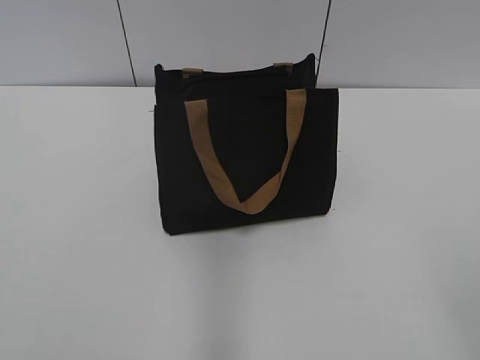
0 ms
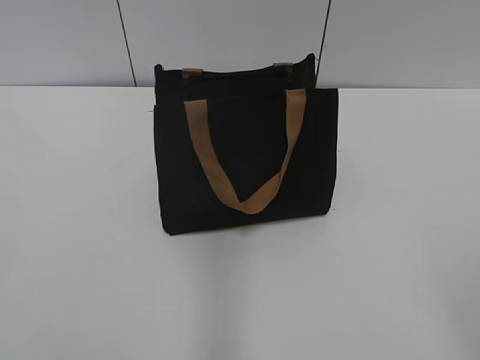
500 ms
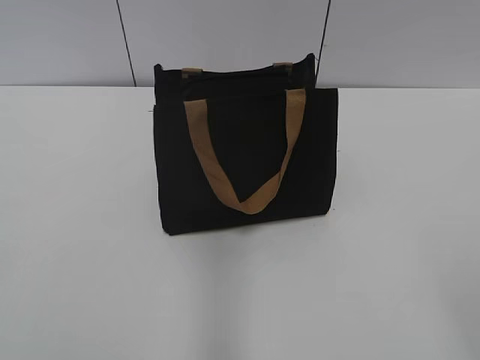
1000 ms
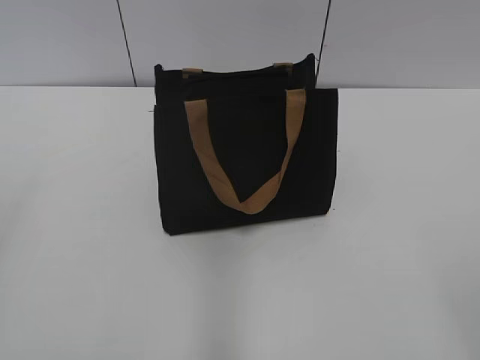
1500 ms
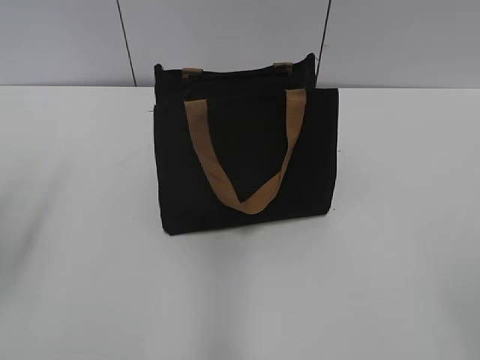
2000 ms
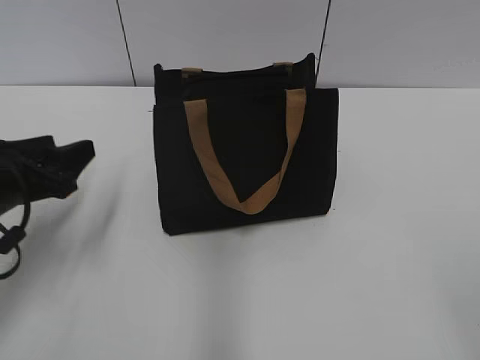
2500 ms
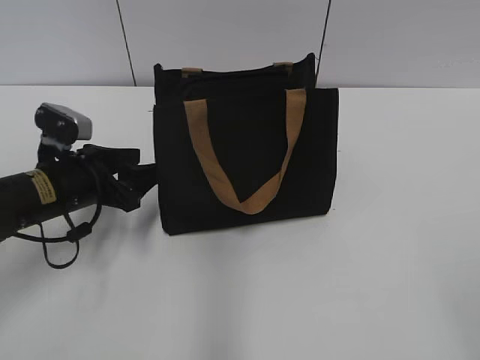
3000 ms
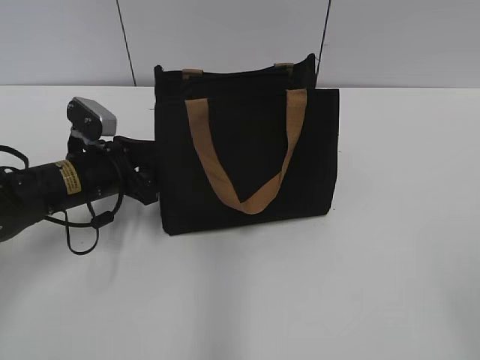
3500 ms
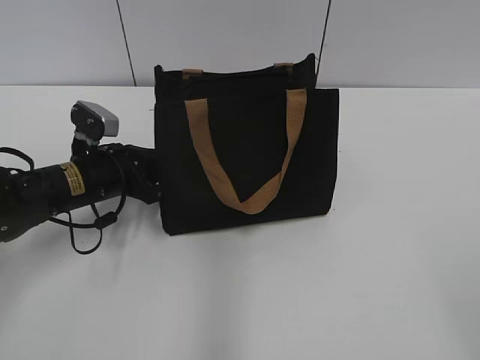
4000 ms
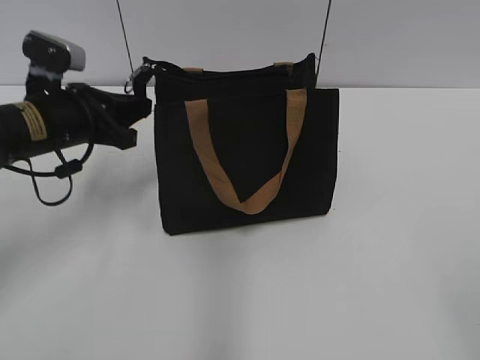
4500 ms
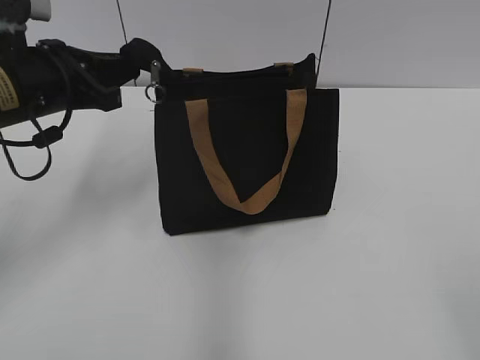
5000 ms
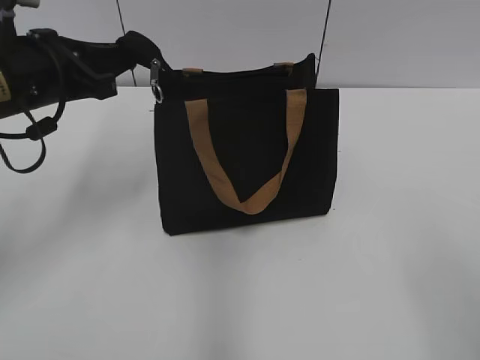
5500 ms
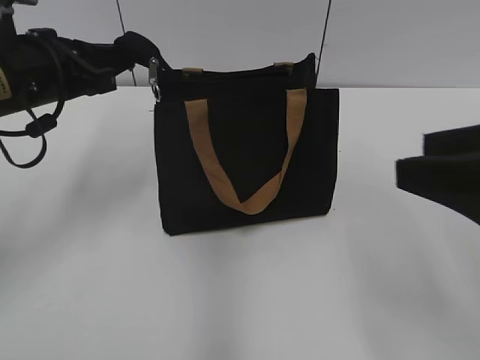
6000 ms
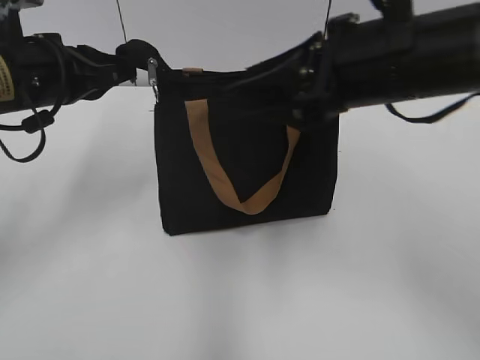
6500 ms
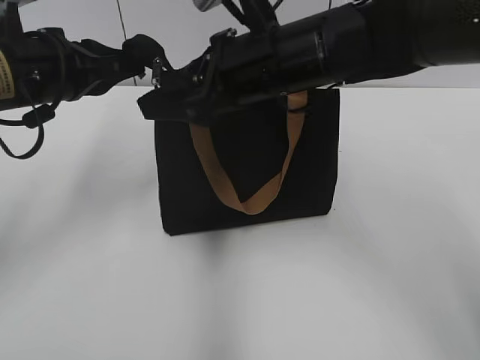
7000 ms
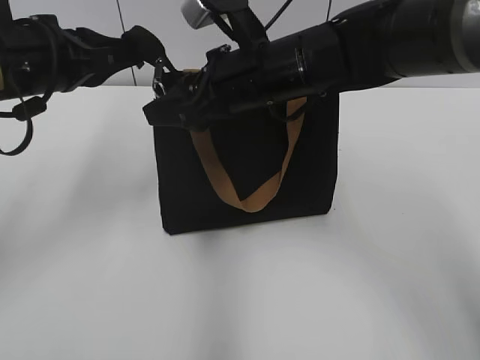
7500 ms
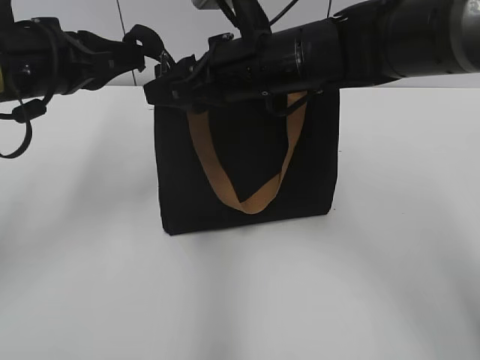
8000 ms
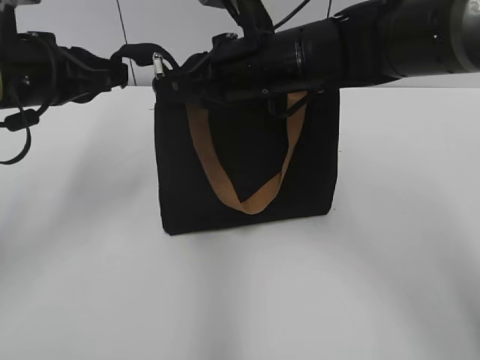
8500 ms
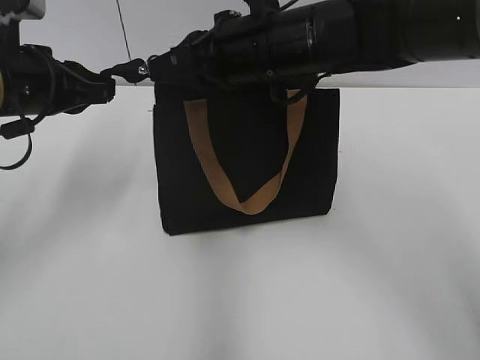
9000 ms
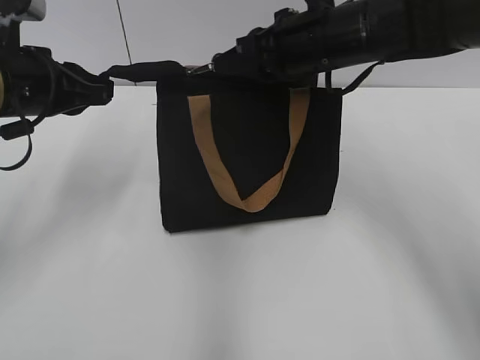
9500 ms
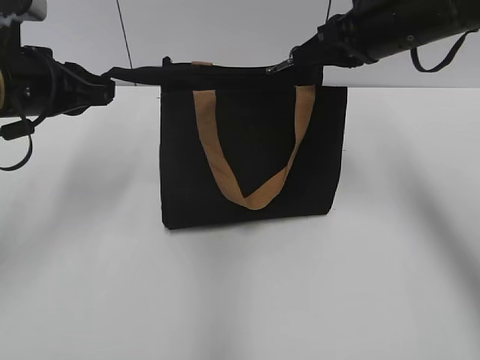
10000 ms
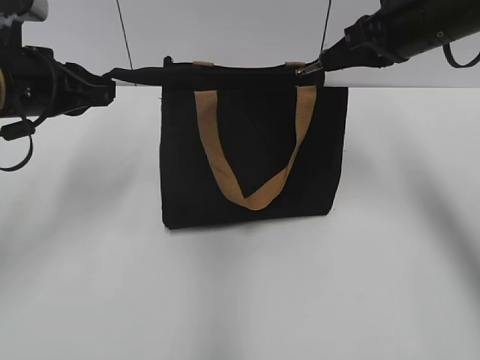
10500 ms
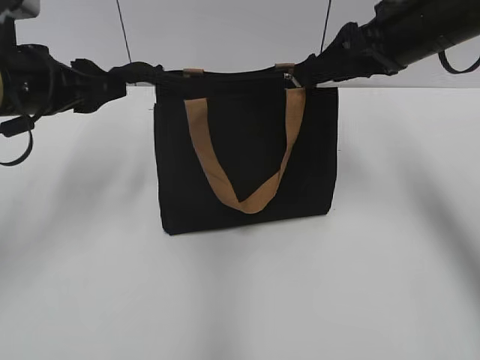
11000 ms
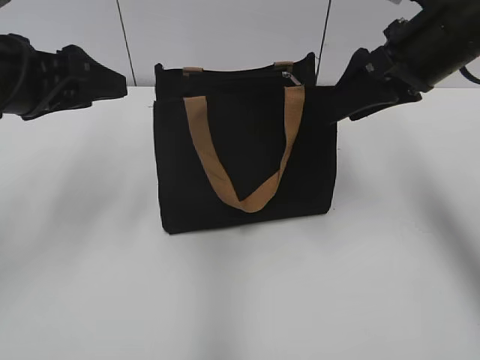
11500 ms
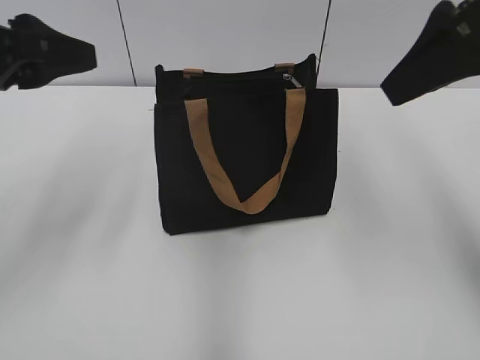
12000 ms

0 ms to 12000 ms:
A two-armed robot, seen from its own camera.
Step, 0 ms to 10500 ms: Zip up the bag with your right hand.
2000 ms to 4000 ms: The left gripper is displaced downward, forward and to the right by about 30 cm, and closes its fingers.
4000 ms to 6000 ms: The right gripper travels forward by roughly 15 cm, while the left gripper heads upward, covering approximately 15 cm.
6000 ms to 8000 ms: The right gripper is displaced forward and to the left by about 30 cm.
8000 ms to 10000 ms: The right gripper heads to the right, covering about 15 cm, and closes up.
10000 ms to 12000 ms: The right gripper travels backward and upward by roughly 15 cm, and opens. Meanwhile the left gripper travels backward and upward by approximately 10 cm, and opens its fingers.

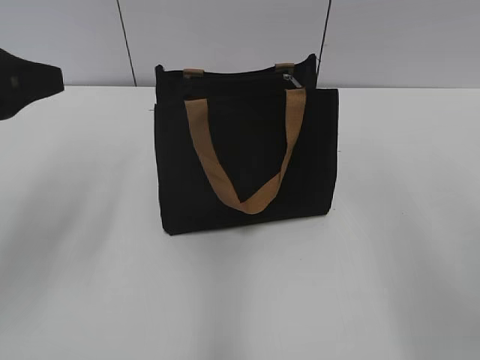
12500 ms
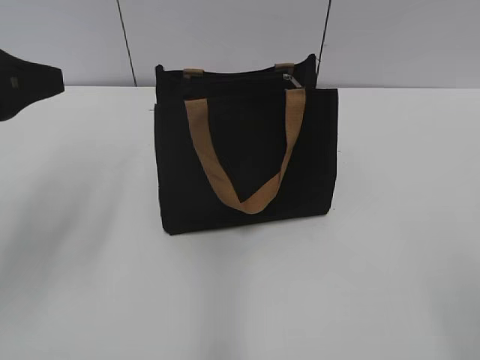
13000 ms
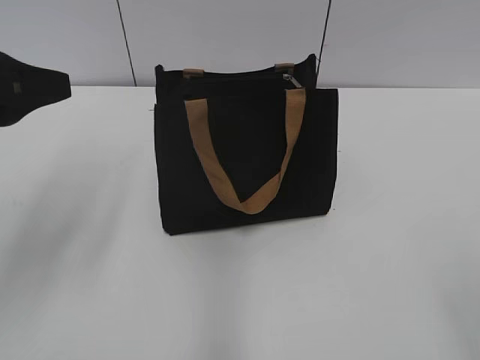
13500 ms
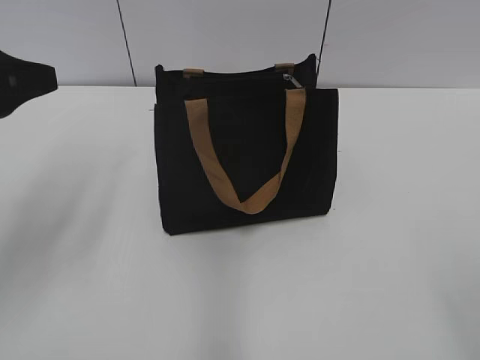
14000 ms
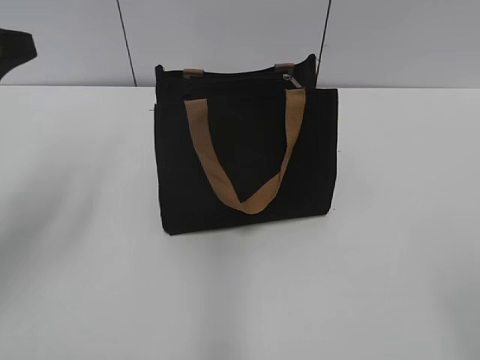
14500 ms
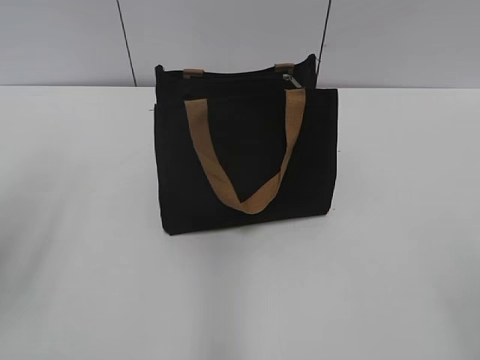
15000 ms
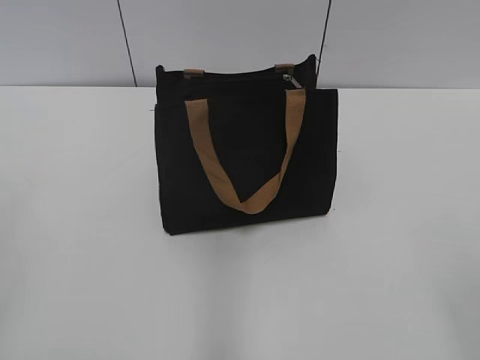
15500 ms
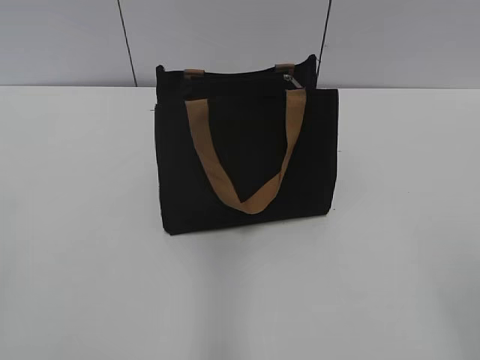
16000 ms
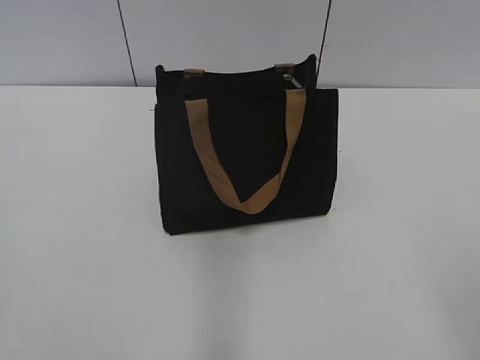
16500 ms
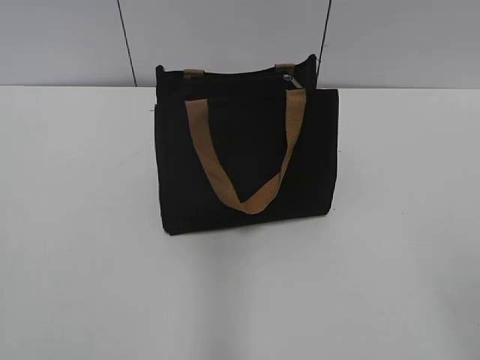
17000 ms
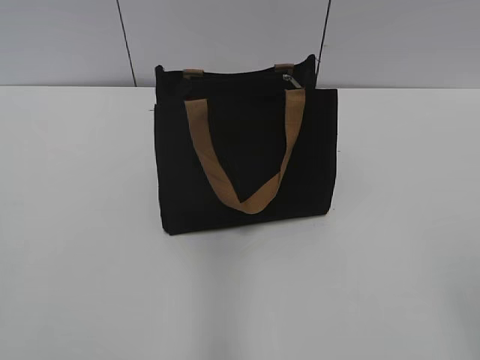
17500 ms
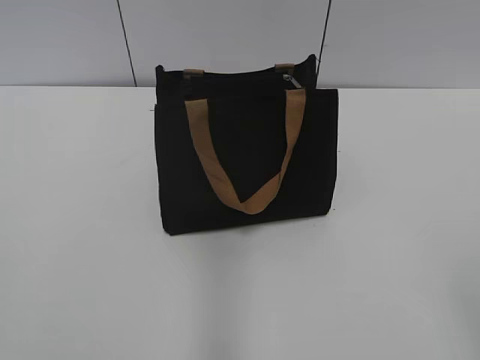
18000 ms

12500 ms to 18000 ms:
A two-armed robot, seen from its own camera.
14500 ms to 16000 ms: The left gripper goes approximately 20 cm backward.
